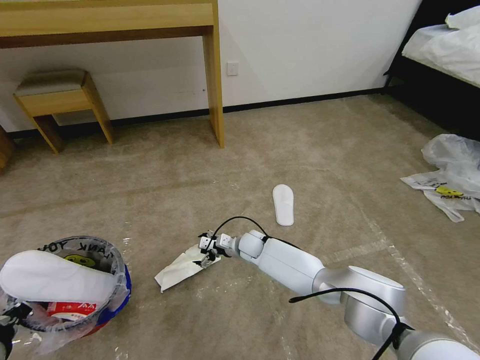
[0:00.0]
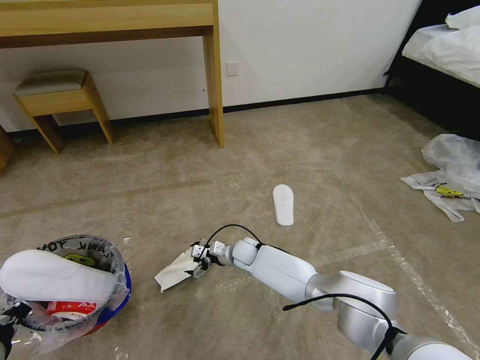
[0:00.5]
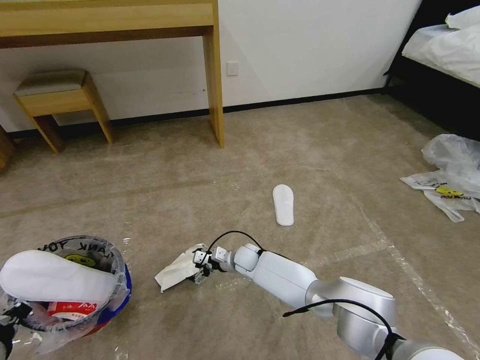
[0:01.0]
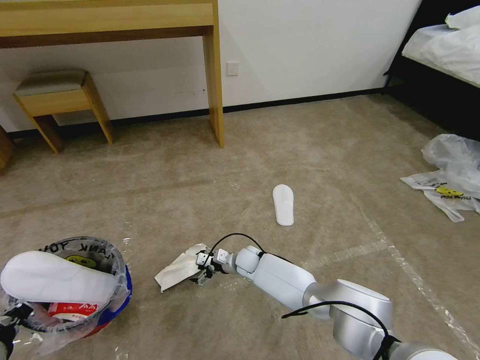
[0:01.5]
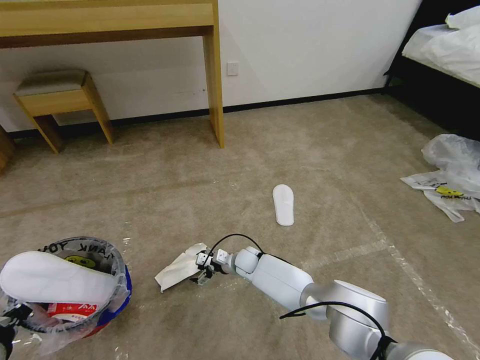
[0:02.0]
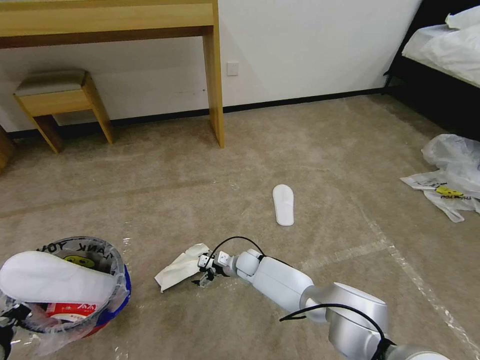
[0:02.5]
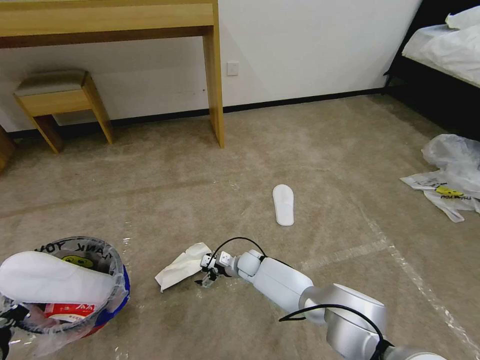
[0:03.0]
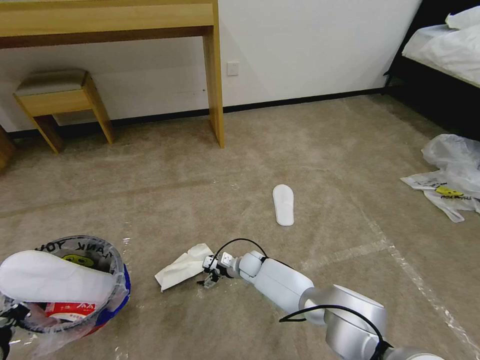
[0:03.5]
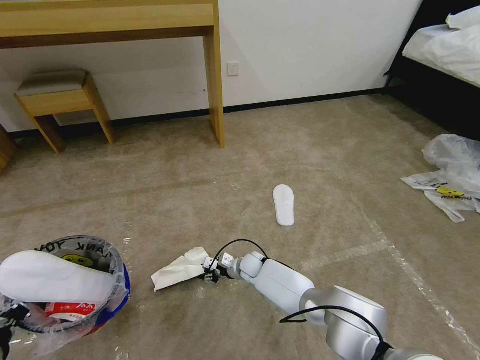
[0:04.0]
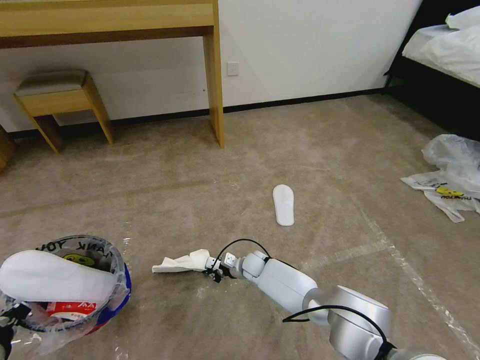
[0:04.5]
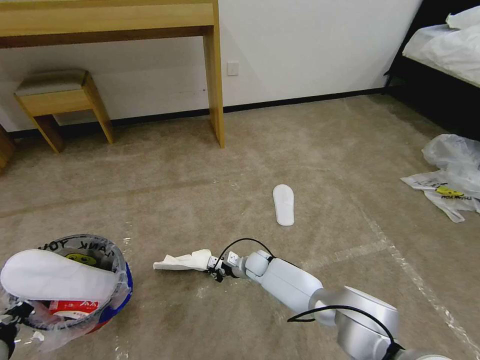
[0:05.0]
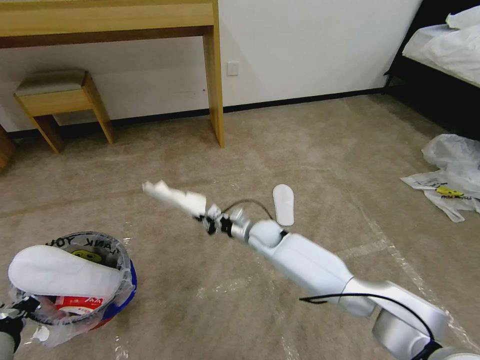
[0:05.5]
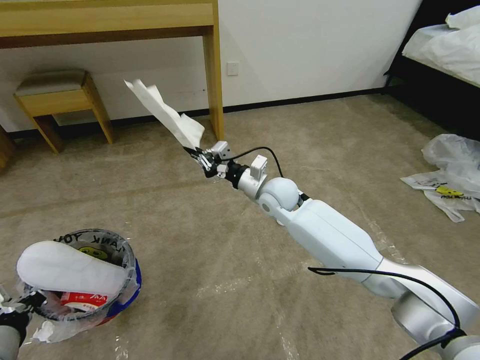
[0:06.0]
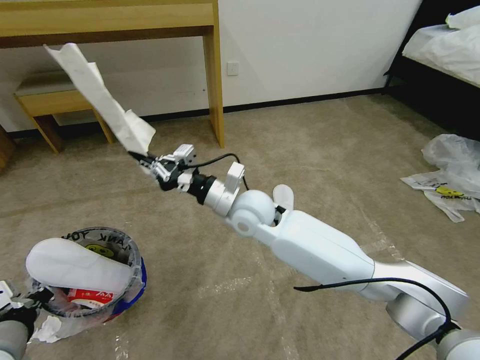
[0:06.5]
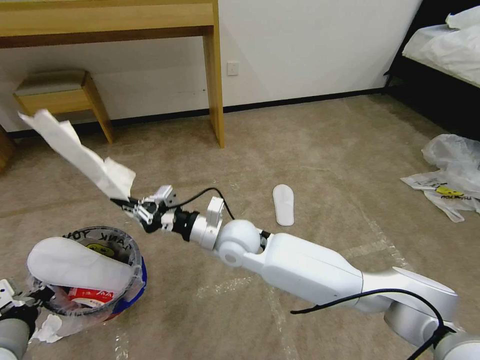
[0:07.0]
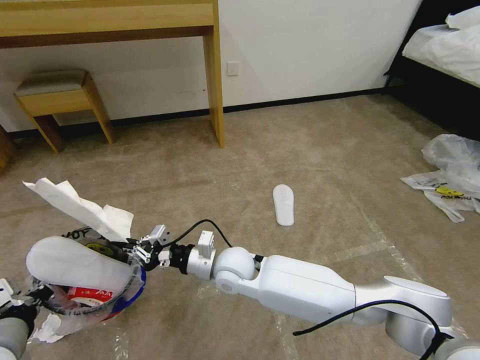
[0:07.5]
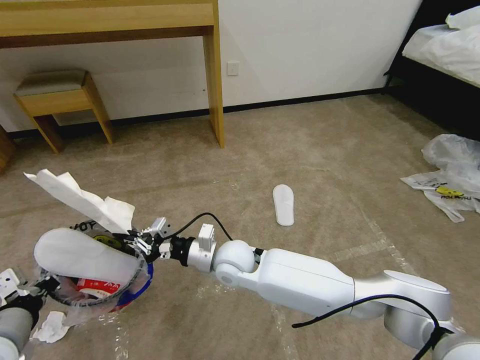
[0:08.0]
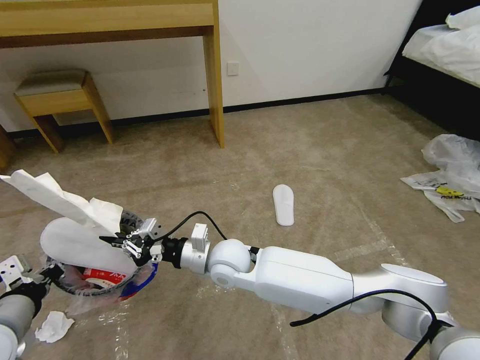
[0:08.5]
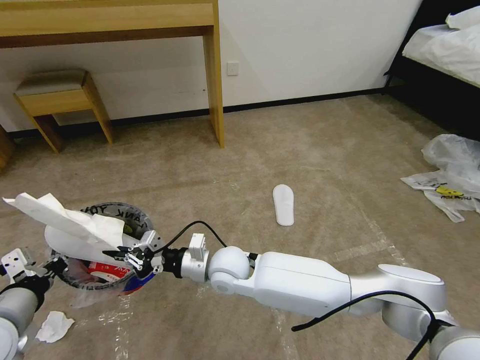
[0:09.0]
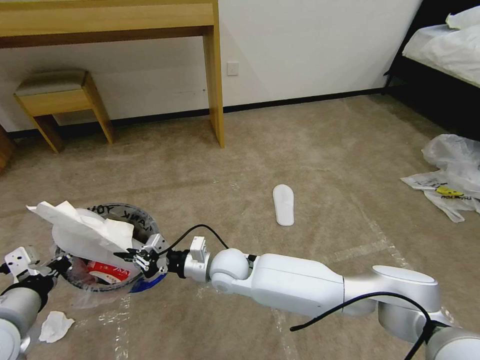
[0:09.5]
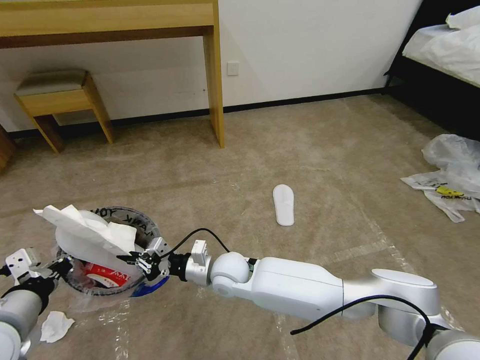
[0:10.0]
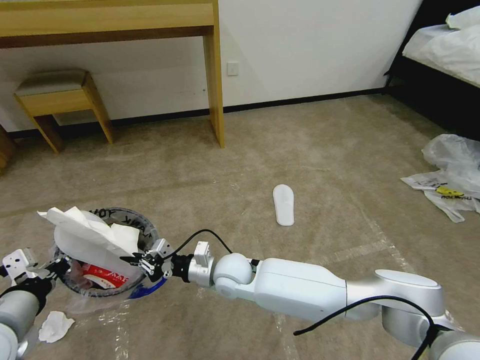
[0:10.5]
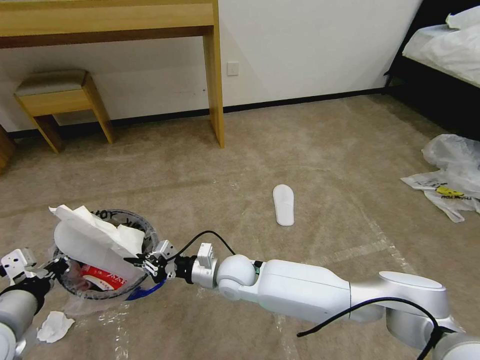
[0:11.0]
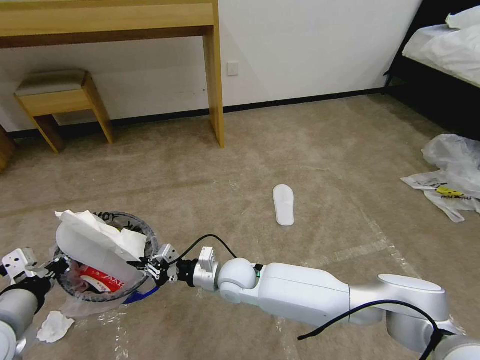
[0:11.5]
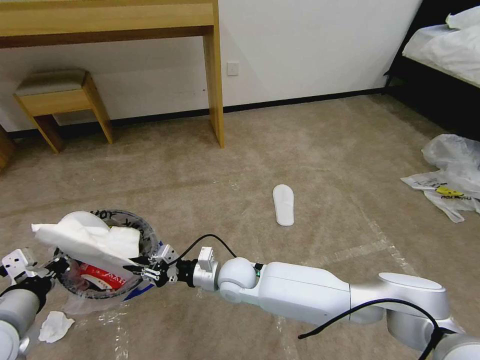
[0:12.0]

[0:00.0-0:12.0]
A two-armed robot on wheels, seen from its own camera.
Task of the whole recording: Pick up the trash bin and place the garbage on the floor into it.
0:00.0 to 0:02.0: The right gripper shifts approximately 5 cm downward.
0:02.0 to 0:04.0: The right gripper closes.
0:04.0 to 0:06.0: The right gripper heads upward, covering some 30 cm, and closes its fingers.
0:06.0 to 0:08.0: The right gripper moves backward, to the left and downward, about 20 cm.
0:08.0 to 0:10.0: The grippers stay close to where they were, moving slightly.
0:10.0 to 0:12.0: There are only small adjustments of the grippers.

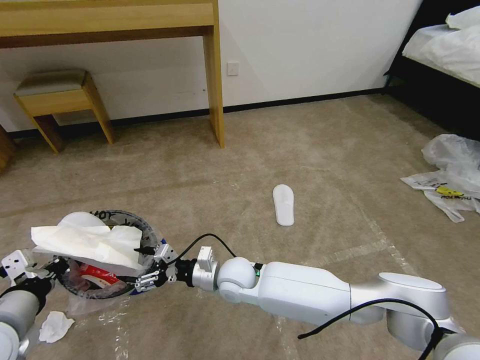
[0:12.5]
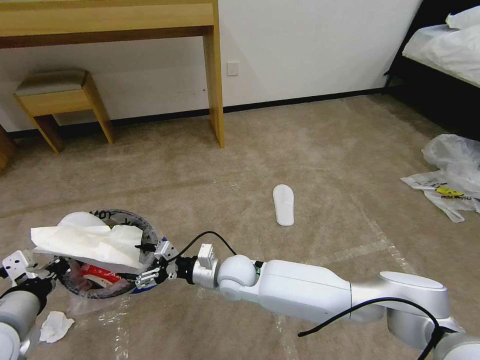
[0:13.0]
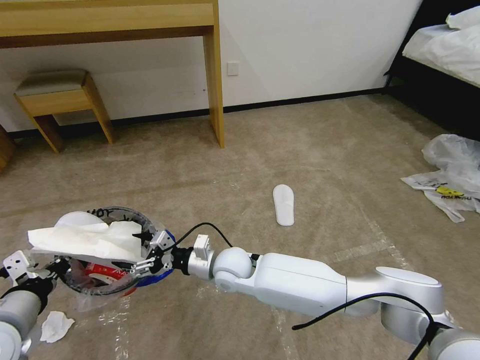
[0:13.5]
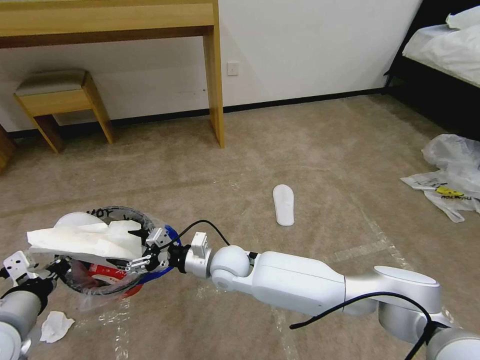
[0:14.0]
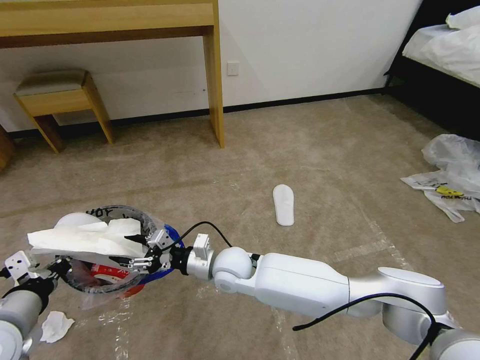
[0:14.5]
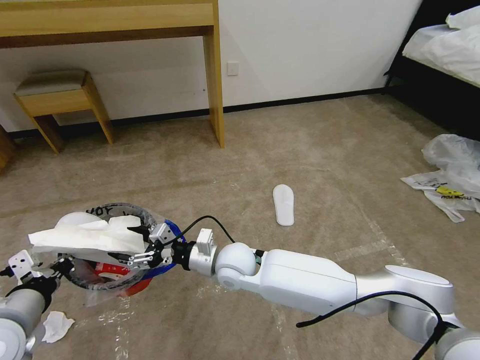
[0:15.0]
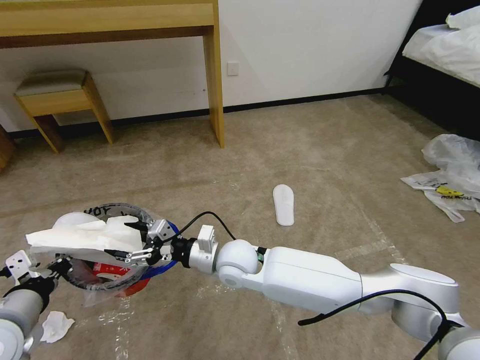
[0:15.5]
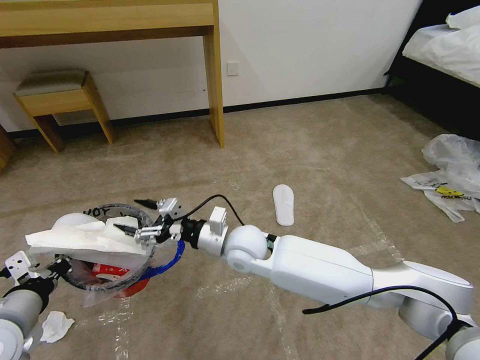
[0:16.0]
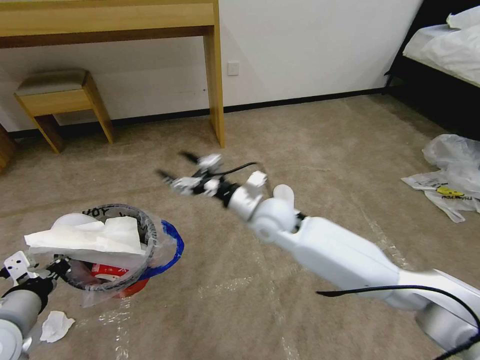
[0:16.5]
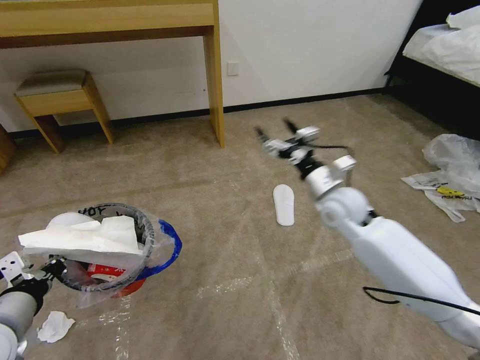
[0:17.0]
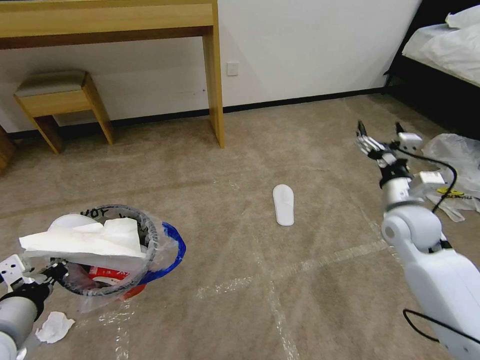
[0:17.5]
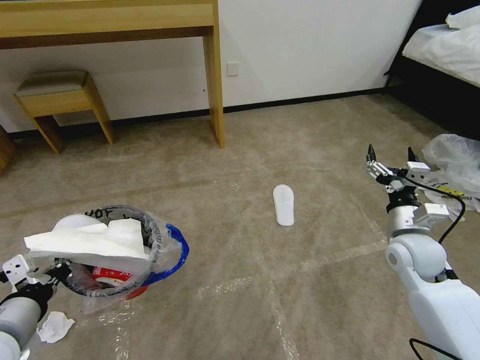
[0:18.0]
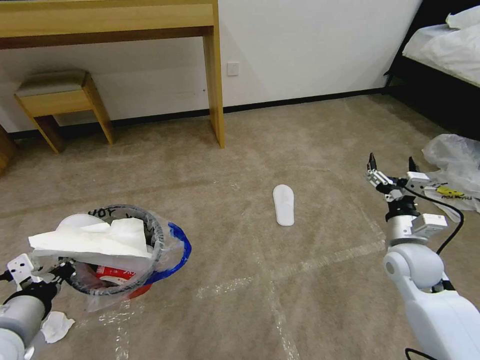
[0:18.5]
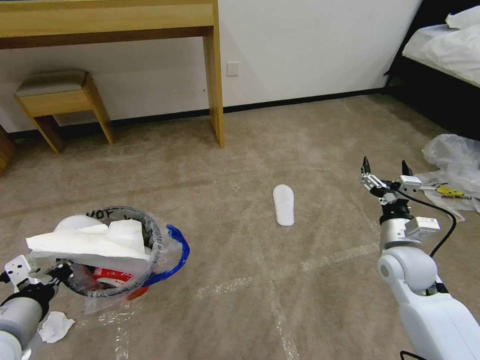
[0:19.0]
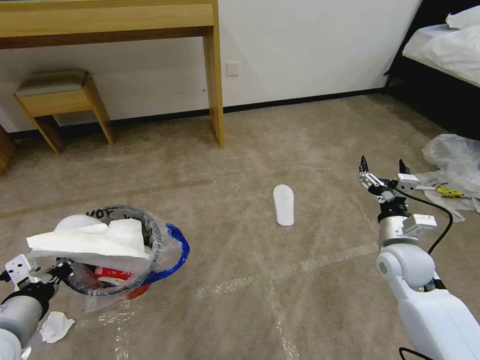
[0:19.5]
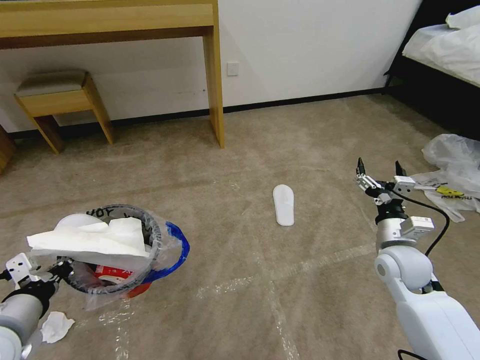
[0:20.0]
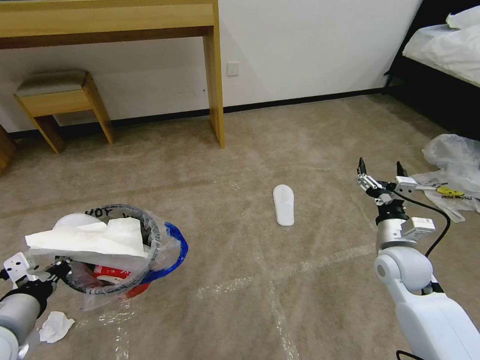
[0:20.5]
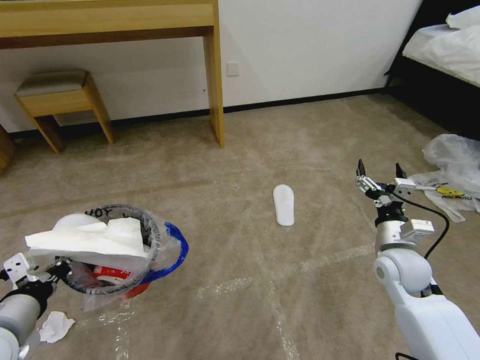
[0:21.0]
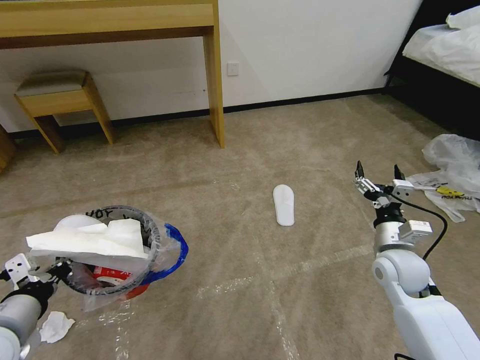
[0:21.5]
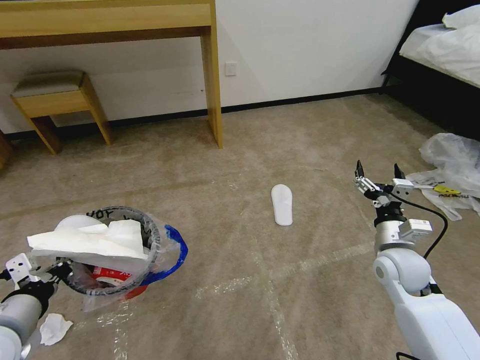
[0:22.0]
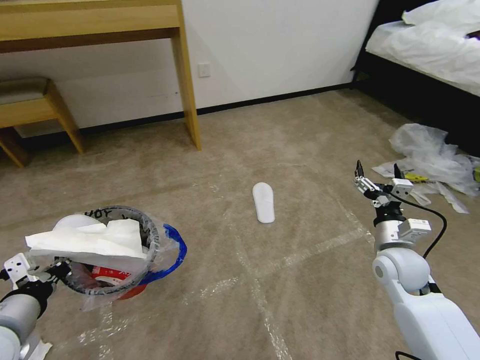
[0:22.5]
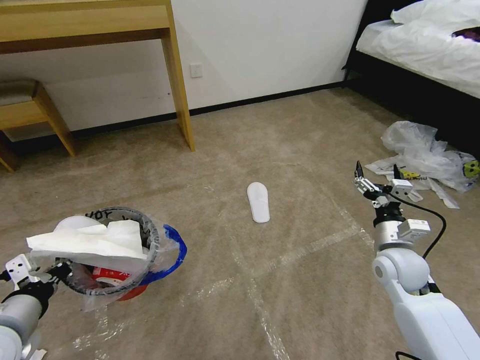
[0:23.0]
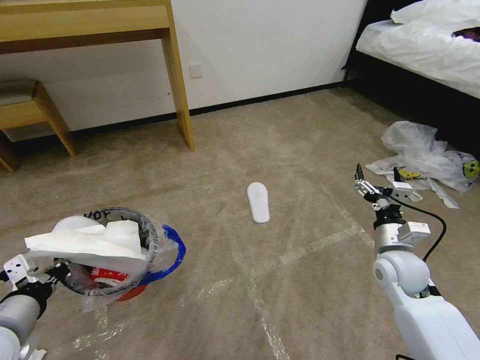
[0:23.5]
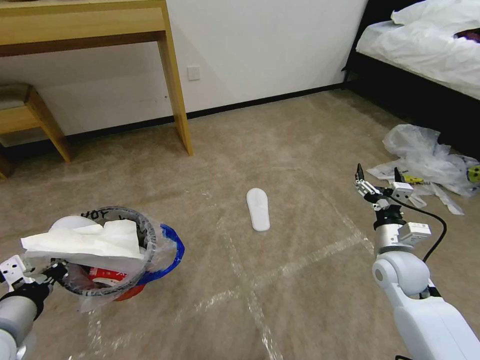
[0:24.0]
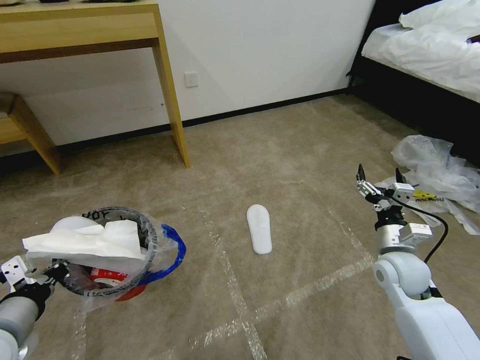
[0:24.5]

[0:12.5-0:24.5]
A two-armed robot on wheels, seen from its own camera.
Task of the whole recording: Pick up the trash bin and place the garbage on the floor into it.
0:12.5 to 0:14.5: The grippers move only a little.
0:14.5 to 0:16.5: The right gripper shifts about 15 cm upward, to the right and forward.
0:16.5 to 0:18.5: The right gripper goes approximately 30 cm to the right.
0:18.5 to 0:20.5: There are only small adjustments of the grippers.

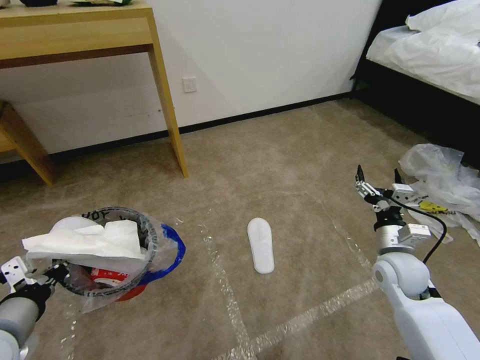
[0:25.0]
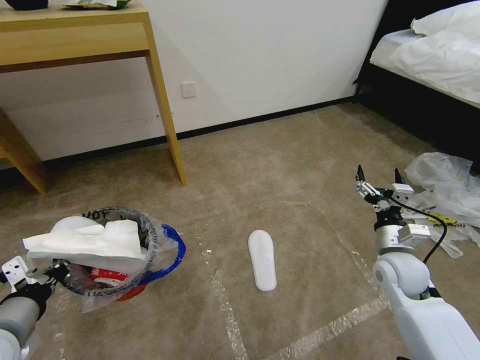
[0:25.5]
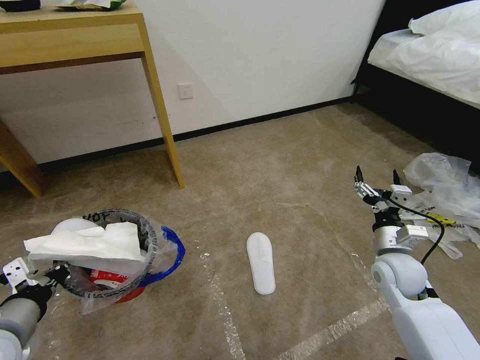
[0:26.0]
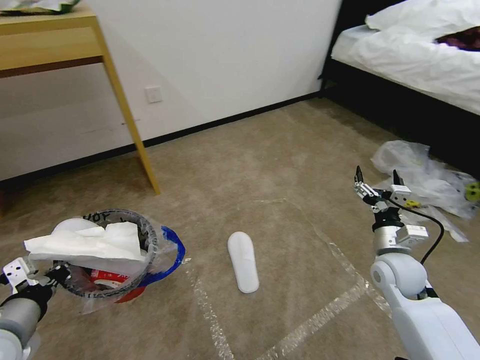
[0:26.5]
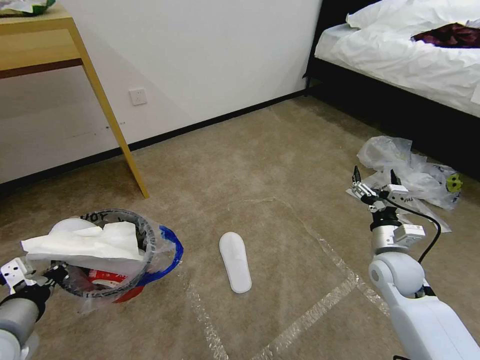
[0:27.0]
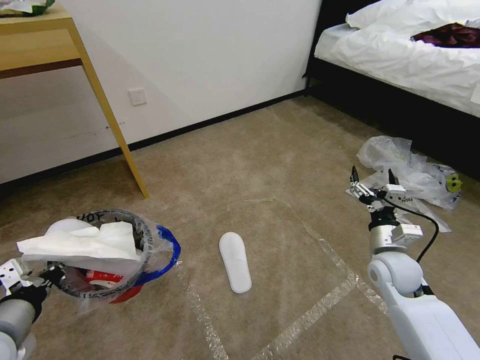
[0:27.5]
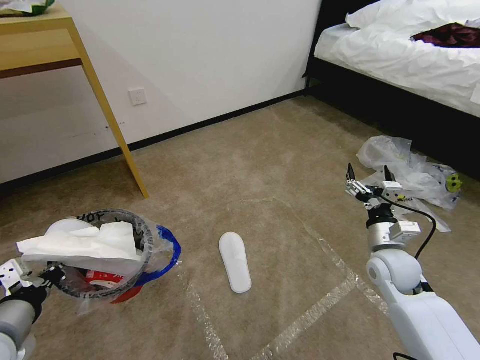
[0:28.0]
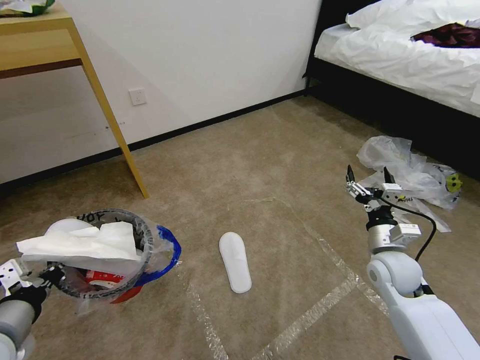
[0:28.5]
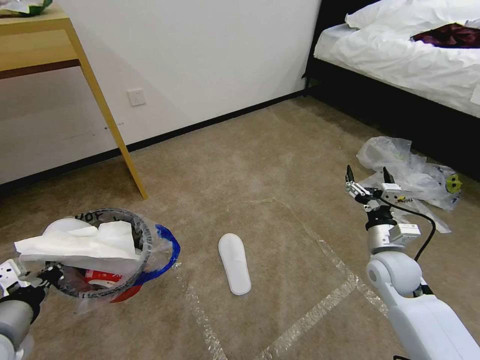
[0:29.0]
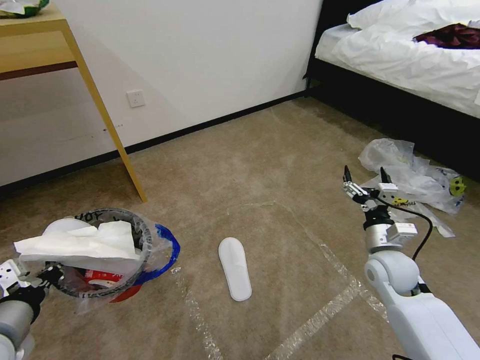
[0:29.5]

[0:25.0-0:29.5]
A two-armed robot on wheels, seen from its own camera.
Task of the whole recording: Pick up the trash bin and place the garbage on the floor into it.
0:27.0 to 0:29.5: Both grippers stay put.
